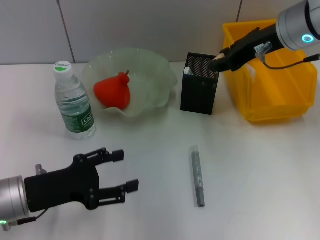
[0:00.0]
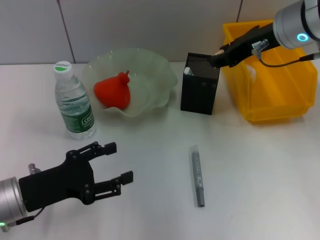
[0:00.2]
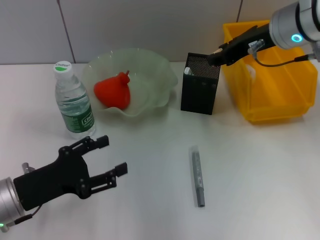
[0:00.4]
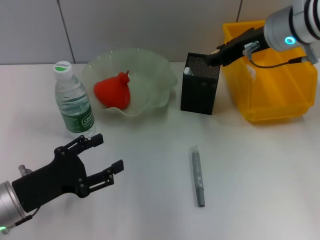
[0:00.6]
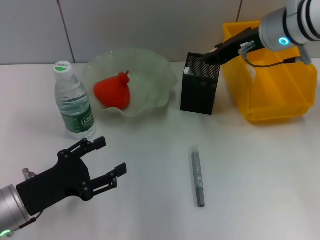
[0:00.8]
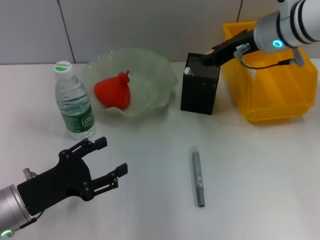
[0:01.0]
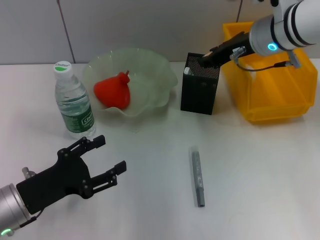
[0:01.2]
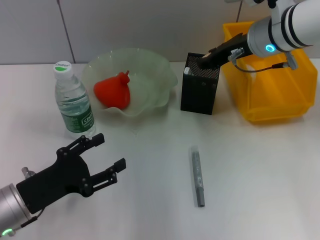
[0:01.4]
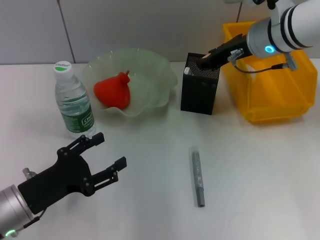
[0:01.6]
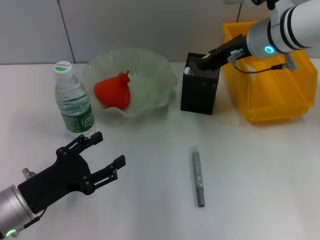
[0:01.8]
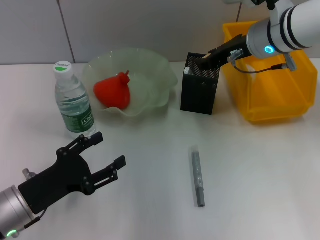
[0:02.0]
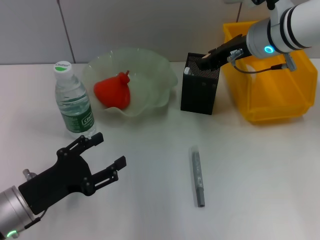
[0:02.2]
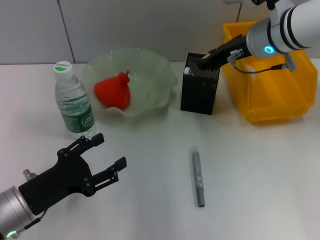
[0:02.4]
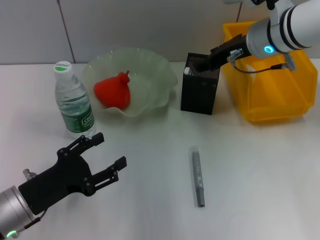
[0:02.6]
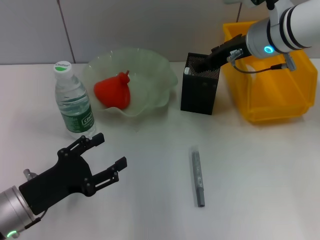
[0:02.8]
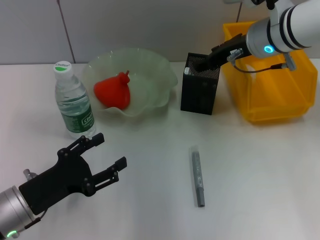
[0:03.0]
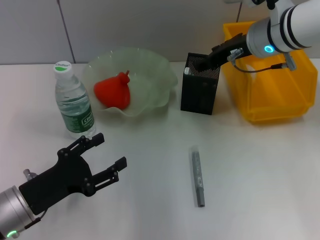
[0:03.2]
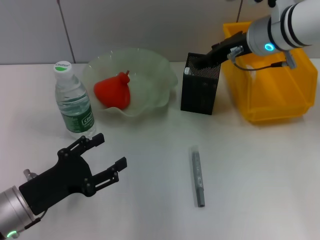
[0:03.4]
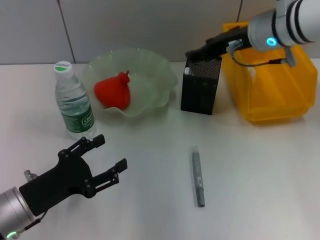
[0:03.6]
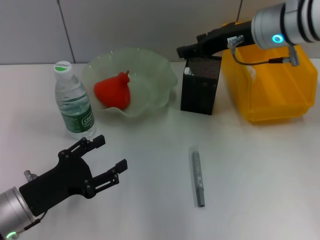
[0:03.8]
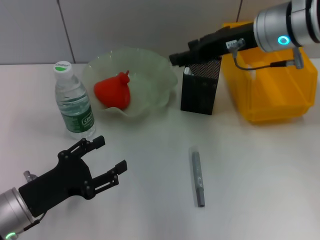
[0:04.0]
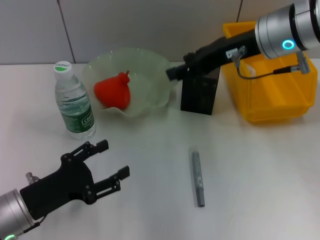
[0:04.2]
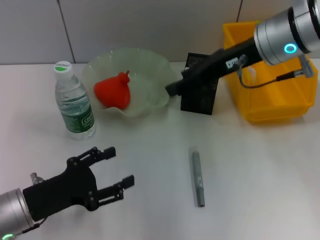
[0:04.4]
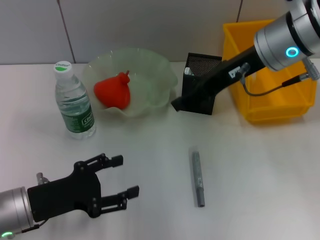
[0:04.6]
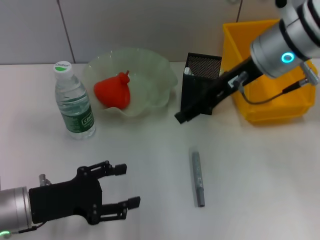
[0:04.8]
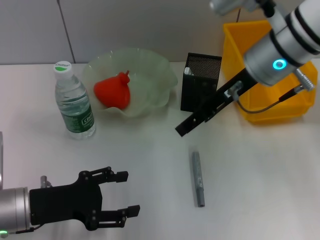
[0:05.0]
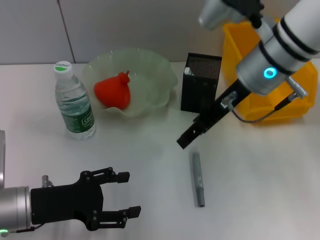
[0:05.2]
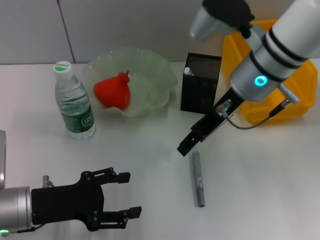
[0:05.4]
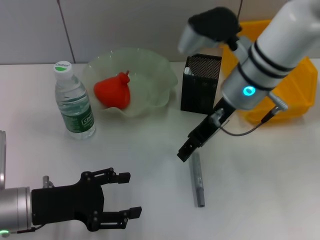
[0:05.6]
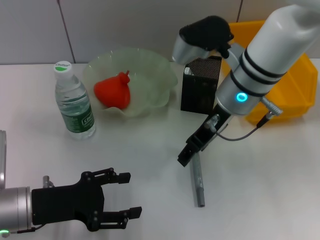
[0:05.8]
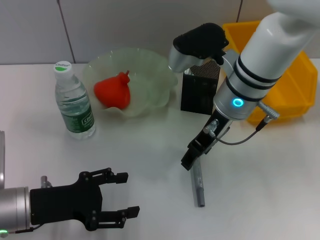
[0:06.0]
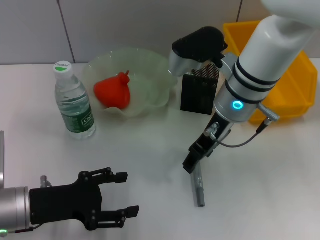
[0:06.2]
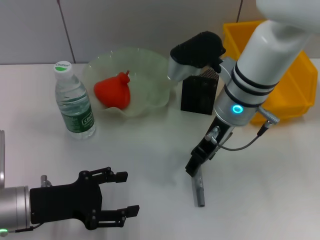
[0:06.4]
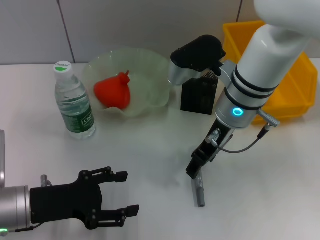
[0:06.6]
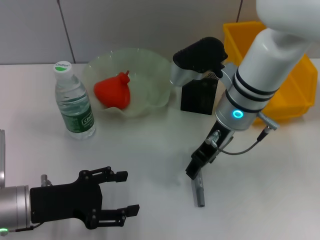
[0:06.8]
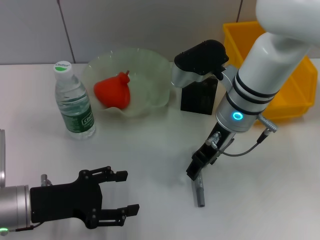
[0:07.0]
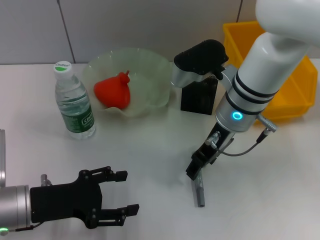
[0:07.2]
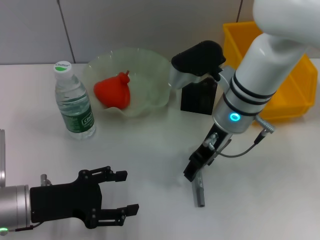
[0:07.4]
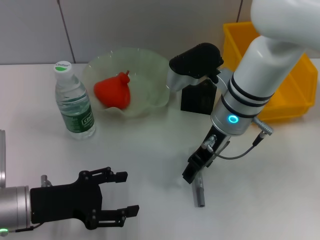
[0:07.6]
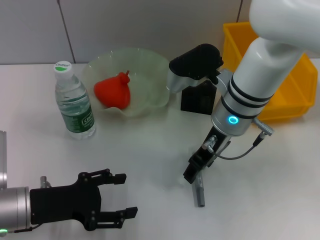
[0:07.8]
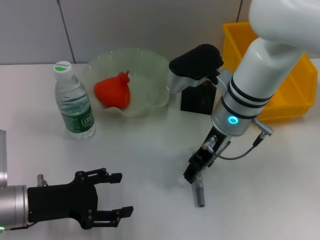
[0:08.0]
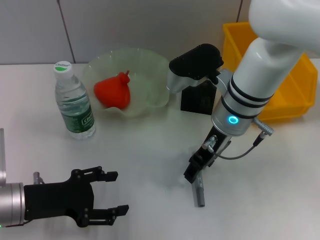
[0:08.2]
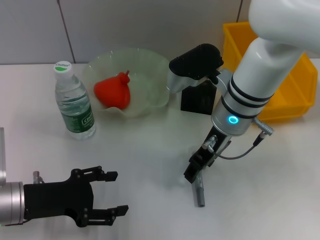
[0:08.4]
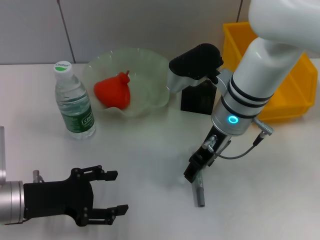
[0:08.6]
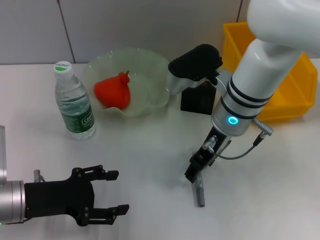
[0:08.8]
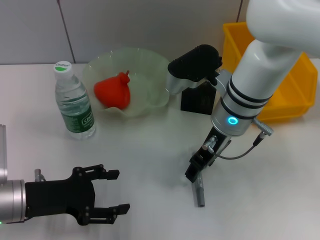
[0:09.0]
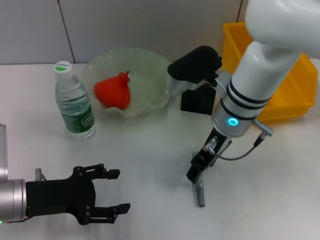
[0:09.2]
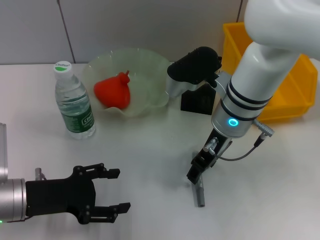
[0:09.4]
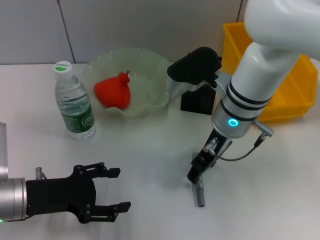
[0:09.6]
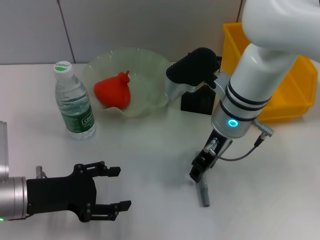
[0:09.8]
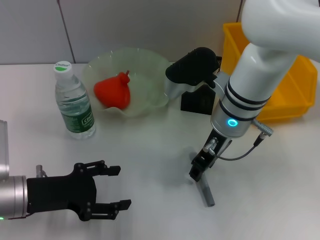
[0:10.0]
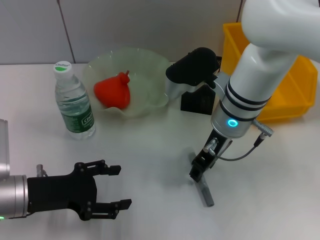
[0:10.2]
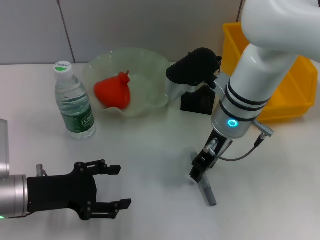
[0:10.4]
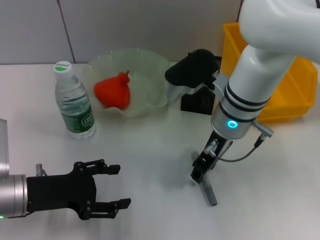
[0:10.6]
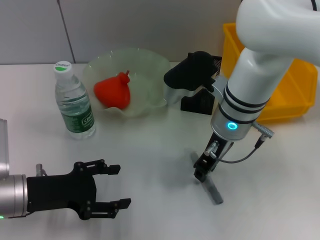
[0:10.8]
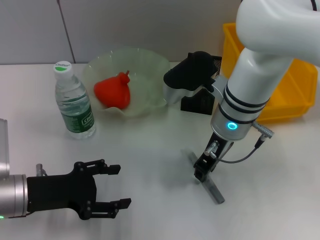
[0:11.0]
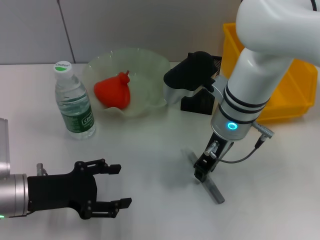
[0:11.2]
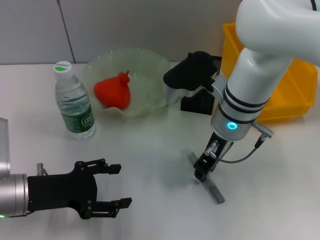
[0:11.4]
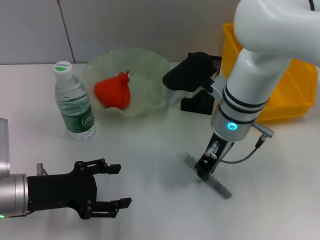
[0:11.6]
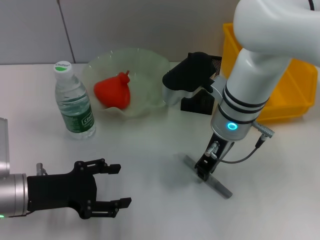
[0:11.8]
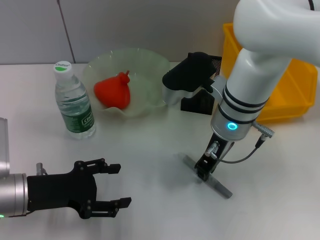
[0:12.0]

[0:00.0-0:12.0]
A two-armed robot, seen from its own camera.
Step, 0:00.0 to 0:03.2: Put the eraser into the pen holder with the right hand.
0:00.0 to 0:01.6: The right gripper shifts by roughly 5 cm.
0:01.6 to 0:03.0: Both grippers stay about where they are.
0:03.0 to 0:04.4: The right gripper moves backward, roughly 5 cm.
0:04.4 to 0:06.0: The right gripper goes some 10 cm downward and to the left.
0:06.0 to 0:09.0: The grippers move only a little.
0:09.0 to 0:10.4: Both grippers stay put.
0:10.4 to 0:12.0: The right gripper closes.

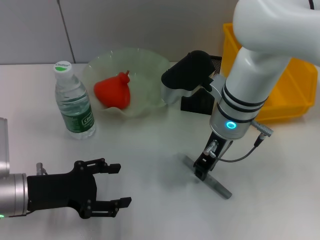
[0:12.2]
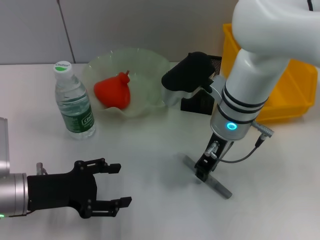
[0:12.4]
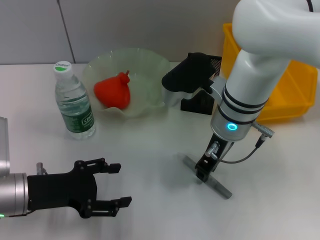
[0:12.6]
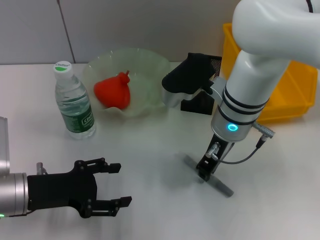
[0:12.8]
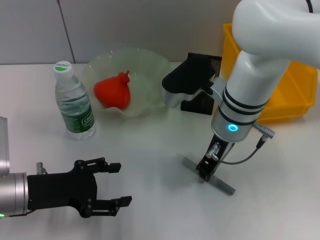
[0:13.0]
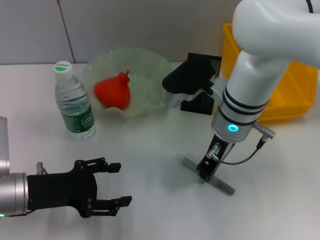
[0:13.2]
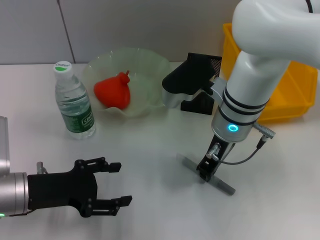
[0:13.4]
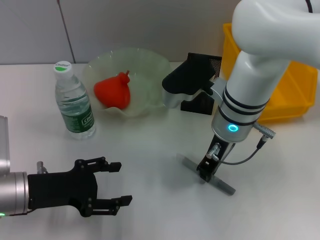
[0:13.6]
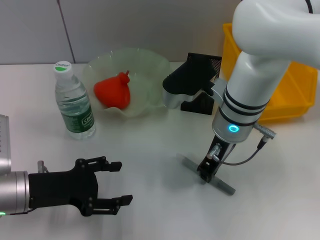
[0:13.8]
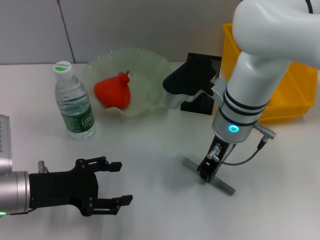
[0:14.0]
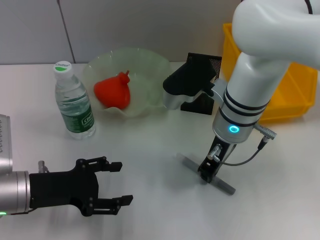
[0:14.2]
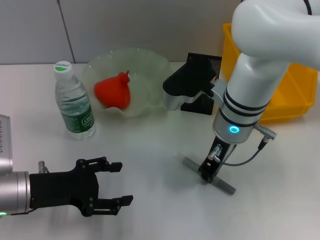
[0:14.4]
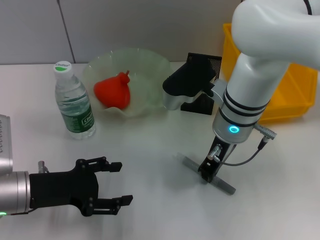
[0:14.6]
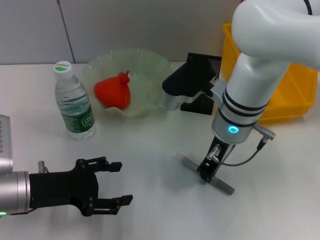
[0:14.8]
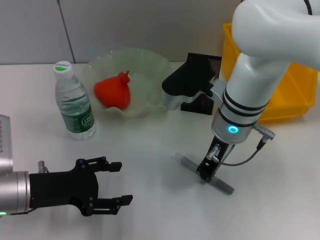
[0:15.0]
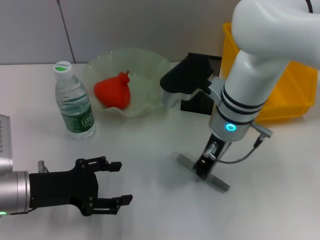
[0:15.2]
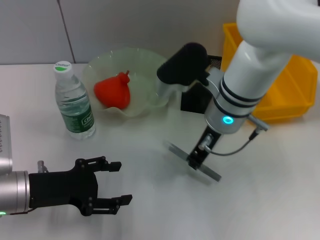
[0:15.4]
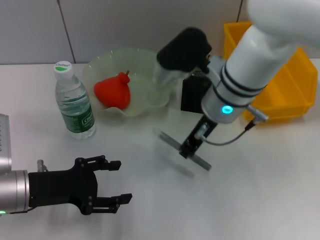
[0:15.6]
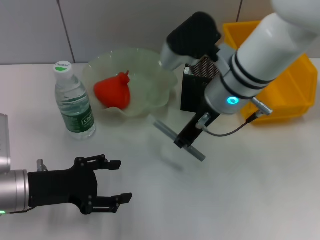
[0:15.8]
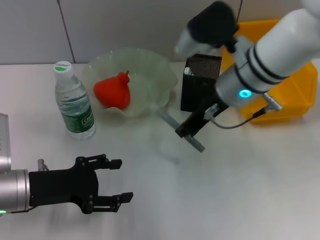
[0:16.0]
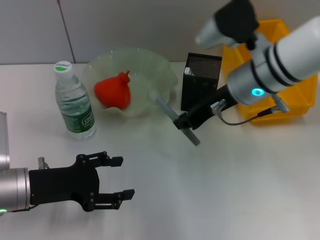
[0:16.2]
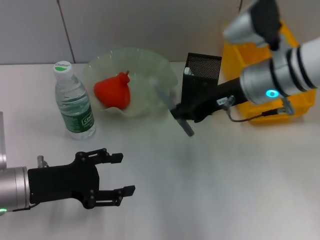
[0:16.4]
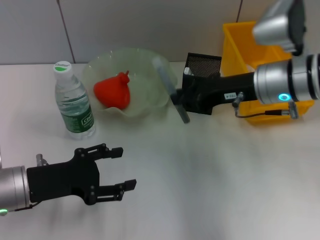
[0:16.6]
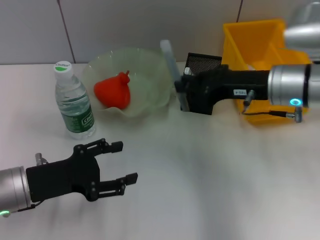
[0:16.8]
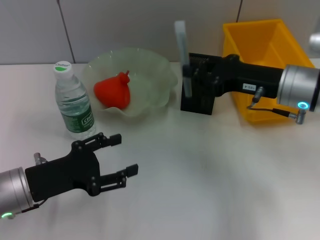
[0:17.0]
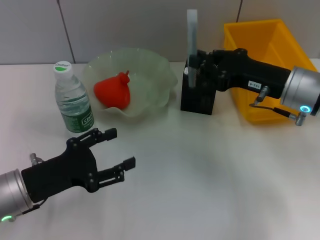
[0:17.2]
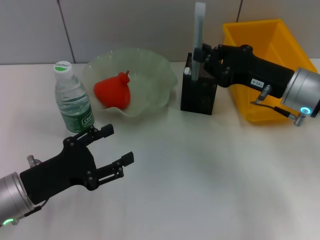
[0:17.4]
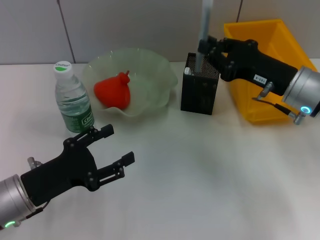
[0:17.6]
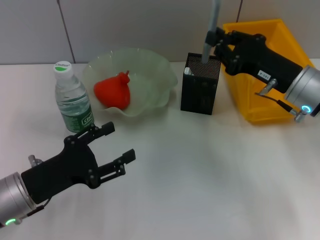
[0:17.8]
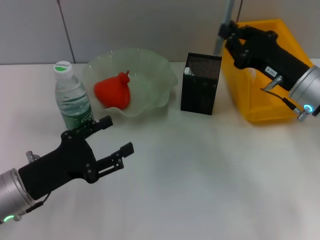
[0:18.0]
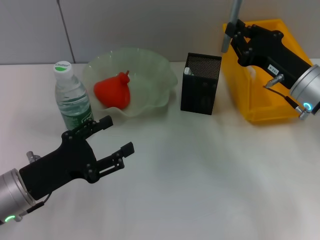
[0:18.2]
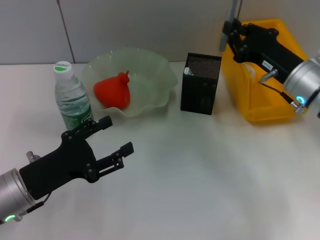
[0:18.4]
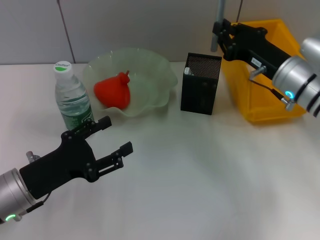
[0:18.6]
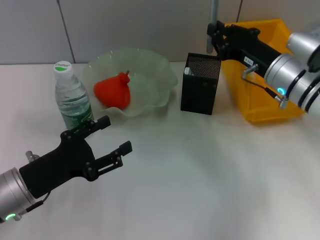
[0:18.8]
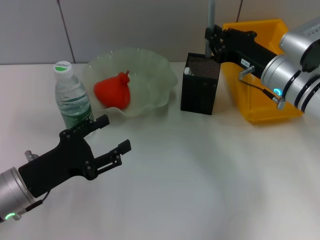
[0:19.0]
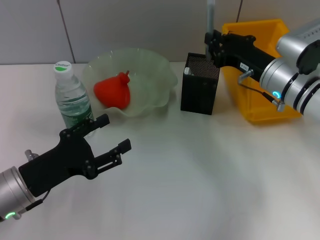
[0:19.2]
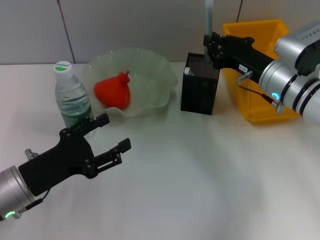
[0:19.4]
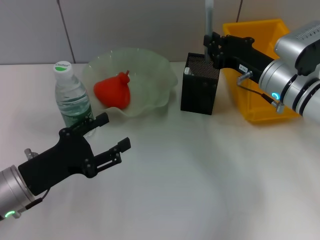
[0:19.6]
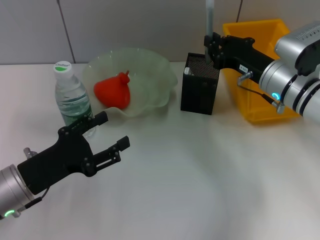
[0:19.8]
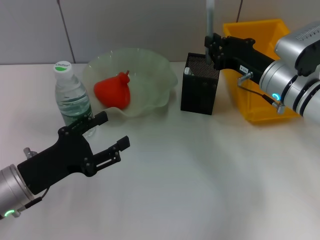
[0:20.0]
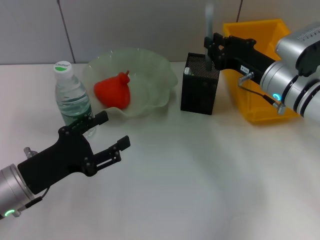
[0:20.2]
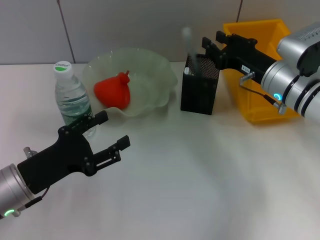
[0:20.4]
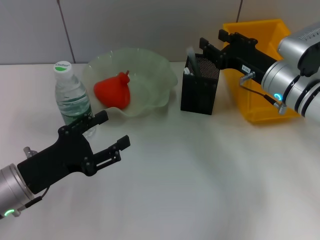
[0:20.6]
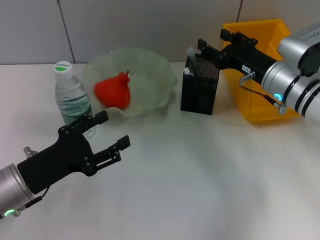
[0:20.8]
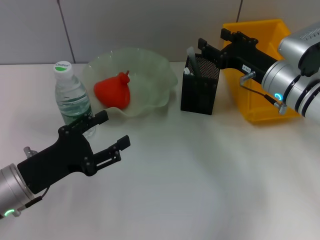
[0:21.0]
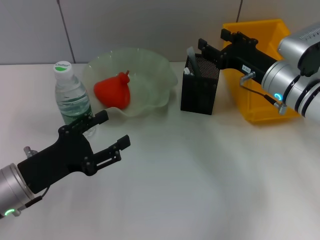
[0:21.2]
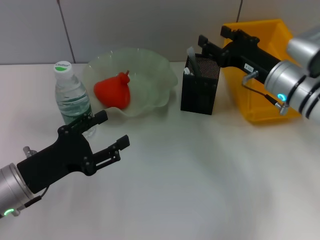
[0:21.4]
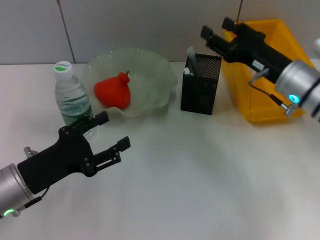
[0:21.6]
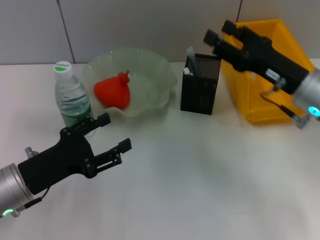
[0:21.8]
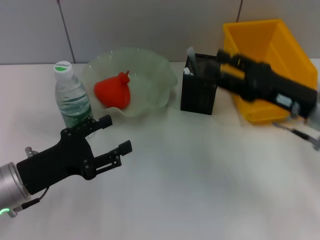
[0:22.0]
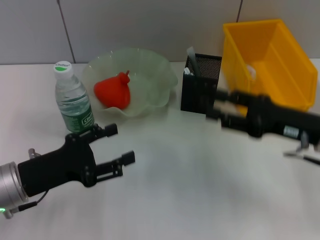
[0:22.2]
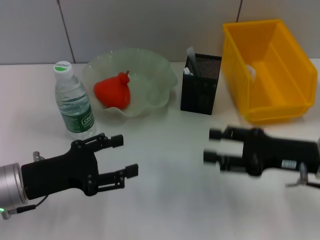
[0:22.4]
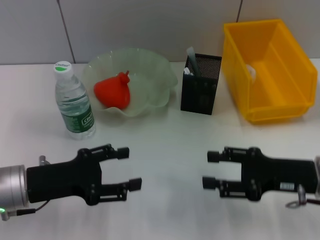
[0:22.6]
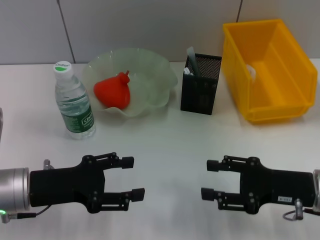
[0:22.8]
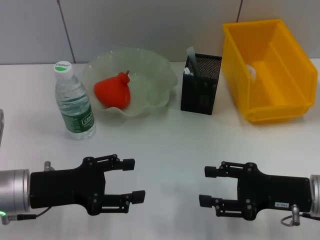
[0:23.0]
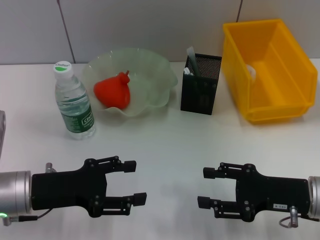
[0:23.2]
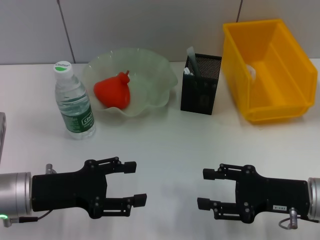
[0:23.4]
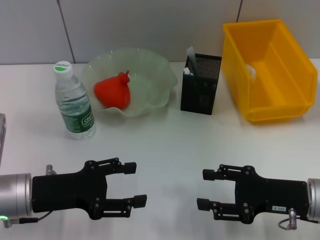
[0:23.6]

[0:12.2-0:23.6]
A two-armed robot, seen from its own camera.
Step, 0:12.2 to 0:14.8: Grab the gray glue with the right hand.
Step, 0:15.0 to 0:21.0: Place the gray glue into the pen holder with the right hand.
0:12.2 to 0:15.0: Neither gripper changes place.
0:15.0 to 0:16.4: The right gripper is displaced to the right by about 5 cm.
0:16.4 to 0:17.8: The right gripper goes some 10 cm to the right and downward.
0:17.8 to 0:19.4: The right gripper ends up approximately 5 cm from where it was.
0:19.4 to 0:20.8: The right gripper opens up.
0:20.8 to 0:22.2: The right gripper travels backward and to the right by approximately 10 cm.
0:22.2 to 0:23.6: The right gripper moves downward and backward, roughly 5 cm.
